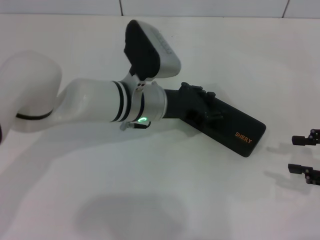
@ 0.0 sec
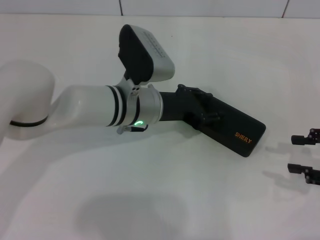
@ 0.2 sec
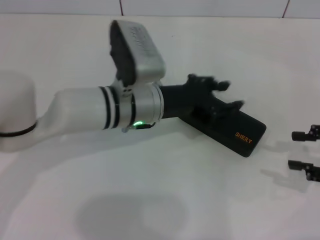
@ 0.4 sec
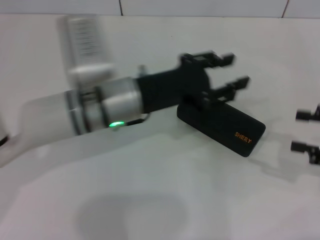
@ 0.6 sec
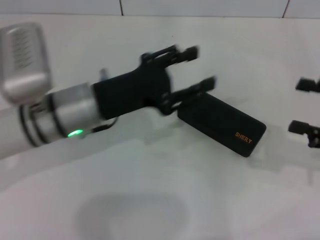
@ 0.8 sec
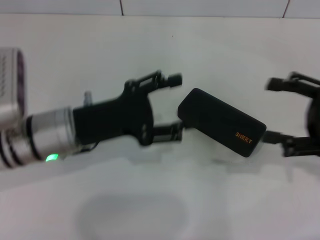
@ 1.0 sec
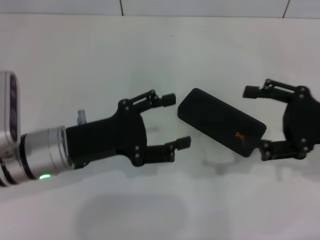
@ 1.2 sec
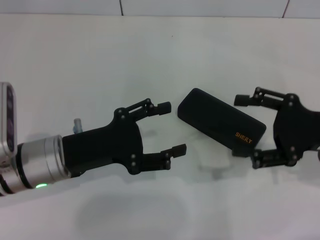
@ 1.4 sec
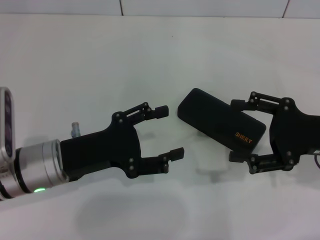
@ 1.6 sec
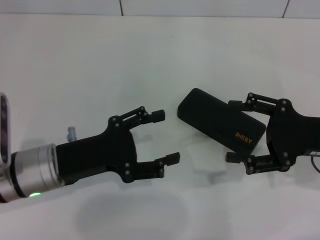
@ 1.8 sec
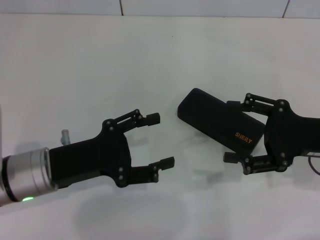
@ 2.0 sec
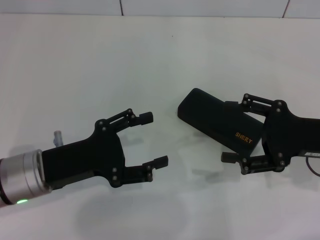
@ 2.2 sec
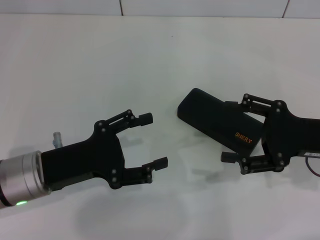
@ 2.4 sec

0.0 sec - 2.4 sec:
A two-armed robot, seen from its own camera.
0.0 sec - 1.2 sec: The left gripper shifts about 15 cm to the left and backward, and opens up. The right gripper goes roughly 5 cm to the left, and opens up.

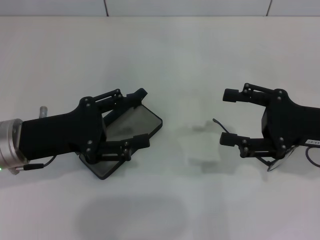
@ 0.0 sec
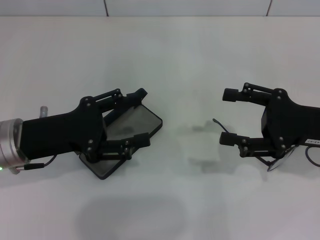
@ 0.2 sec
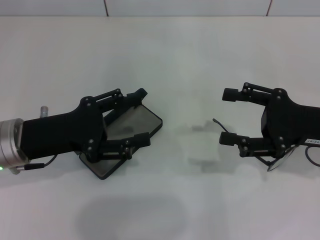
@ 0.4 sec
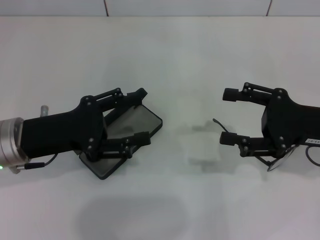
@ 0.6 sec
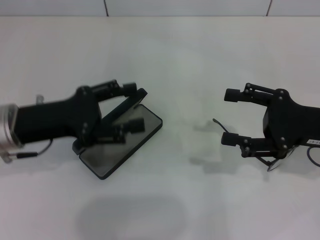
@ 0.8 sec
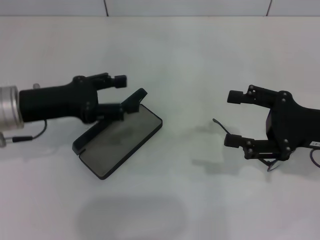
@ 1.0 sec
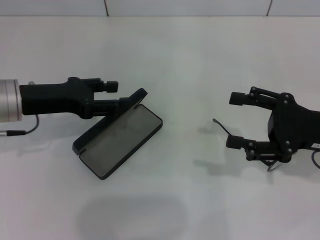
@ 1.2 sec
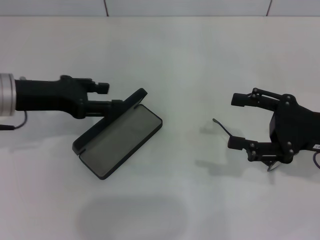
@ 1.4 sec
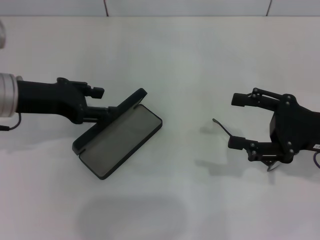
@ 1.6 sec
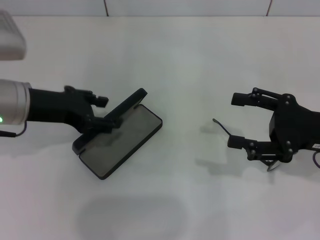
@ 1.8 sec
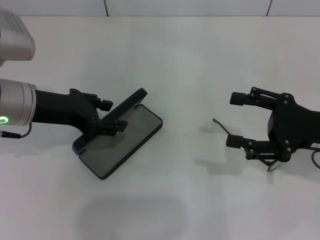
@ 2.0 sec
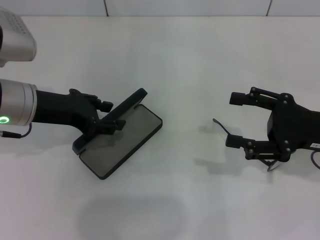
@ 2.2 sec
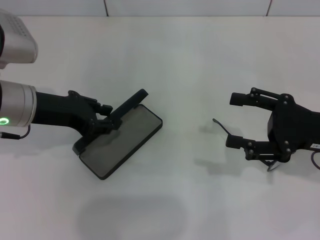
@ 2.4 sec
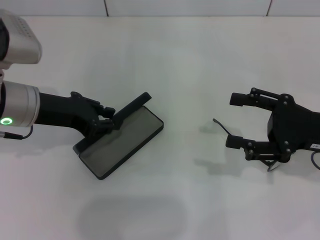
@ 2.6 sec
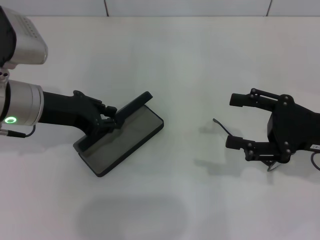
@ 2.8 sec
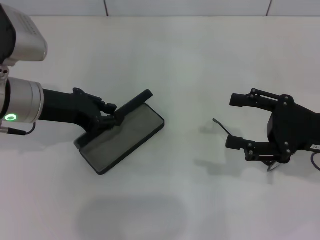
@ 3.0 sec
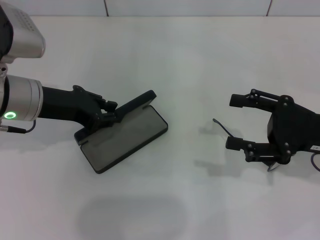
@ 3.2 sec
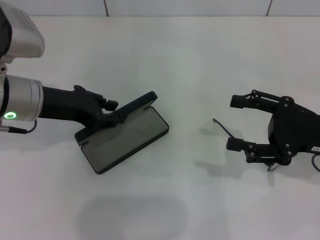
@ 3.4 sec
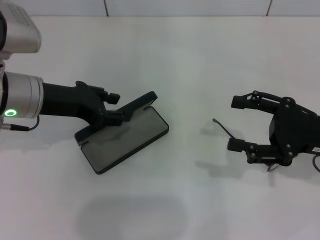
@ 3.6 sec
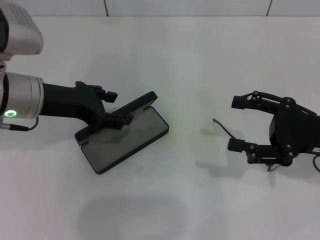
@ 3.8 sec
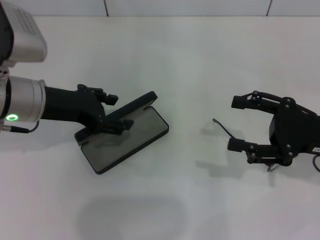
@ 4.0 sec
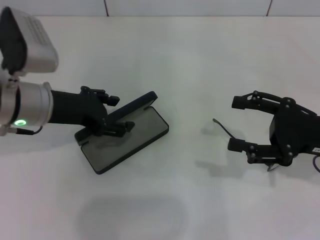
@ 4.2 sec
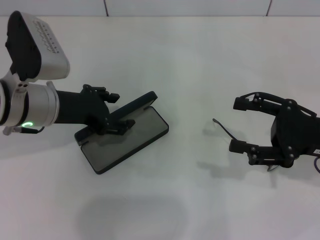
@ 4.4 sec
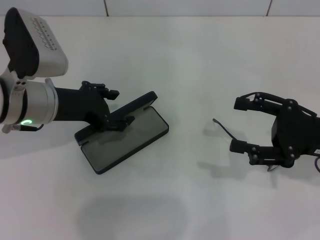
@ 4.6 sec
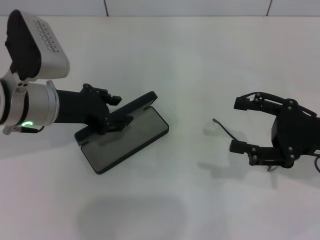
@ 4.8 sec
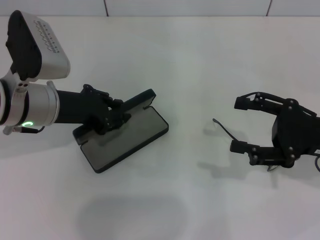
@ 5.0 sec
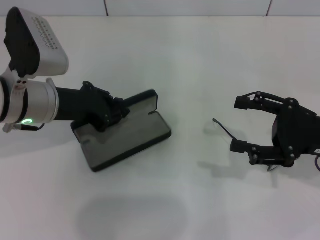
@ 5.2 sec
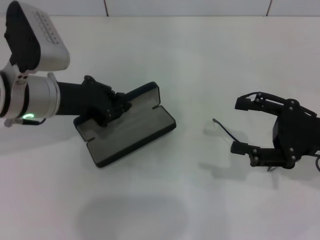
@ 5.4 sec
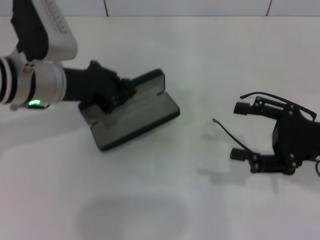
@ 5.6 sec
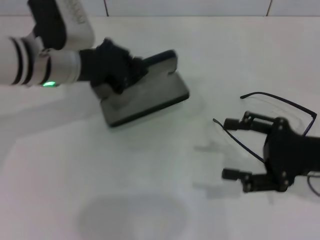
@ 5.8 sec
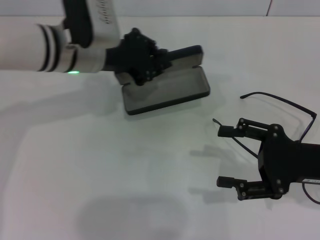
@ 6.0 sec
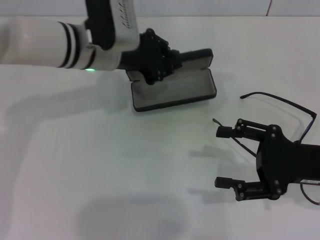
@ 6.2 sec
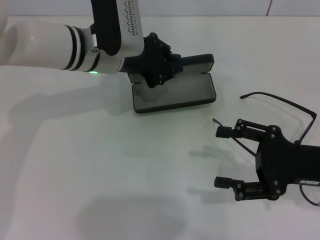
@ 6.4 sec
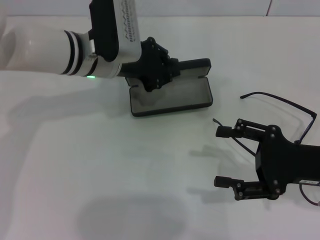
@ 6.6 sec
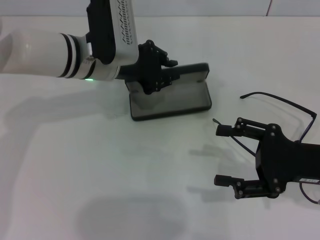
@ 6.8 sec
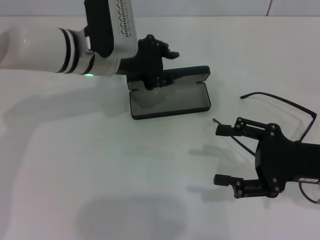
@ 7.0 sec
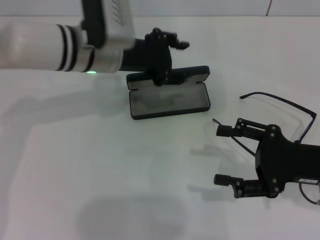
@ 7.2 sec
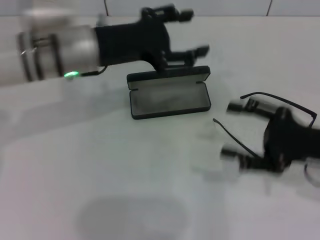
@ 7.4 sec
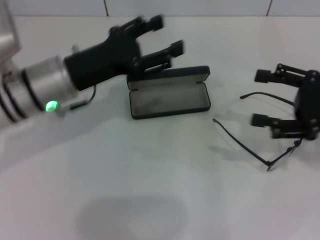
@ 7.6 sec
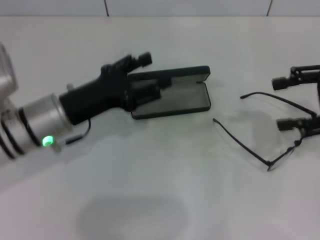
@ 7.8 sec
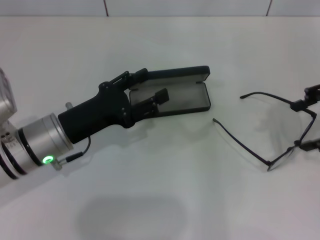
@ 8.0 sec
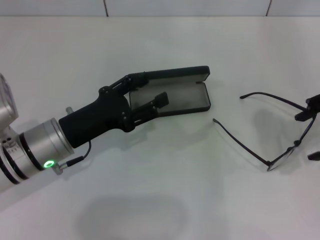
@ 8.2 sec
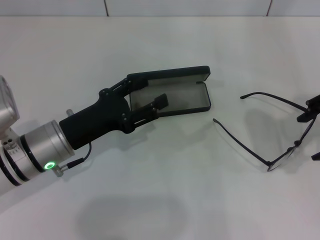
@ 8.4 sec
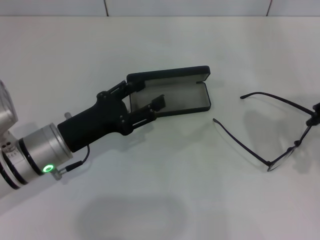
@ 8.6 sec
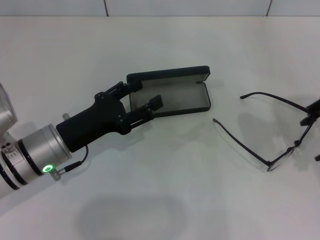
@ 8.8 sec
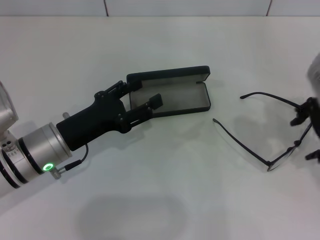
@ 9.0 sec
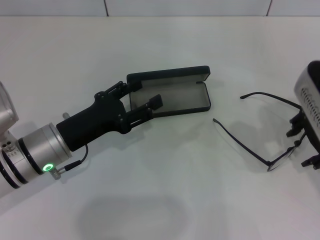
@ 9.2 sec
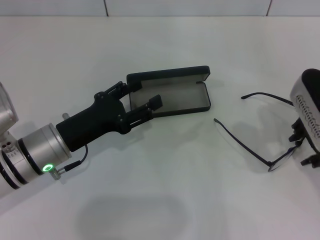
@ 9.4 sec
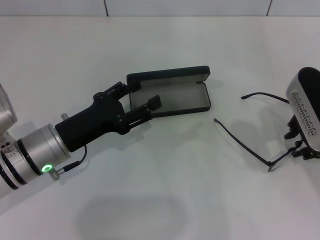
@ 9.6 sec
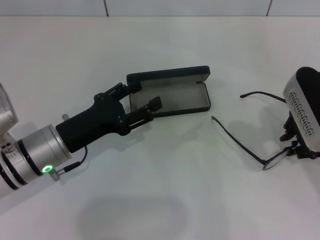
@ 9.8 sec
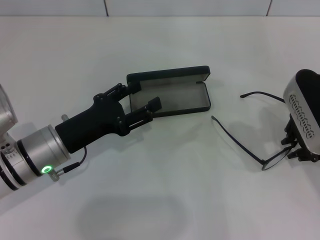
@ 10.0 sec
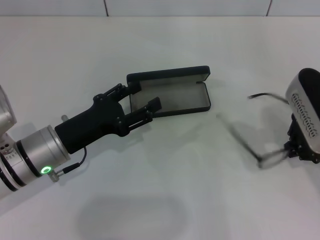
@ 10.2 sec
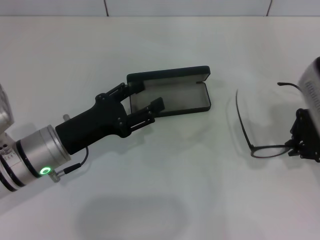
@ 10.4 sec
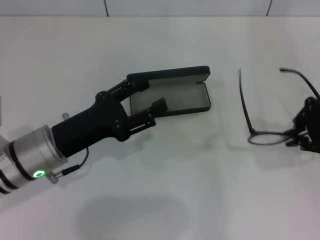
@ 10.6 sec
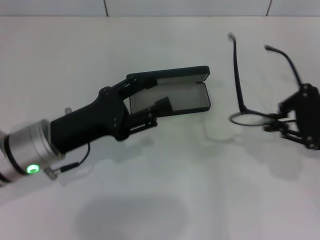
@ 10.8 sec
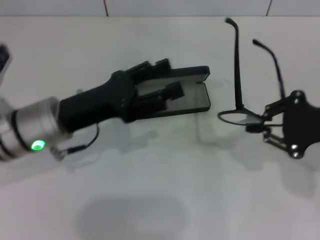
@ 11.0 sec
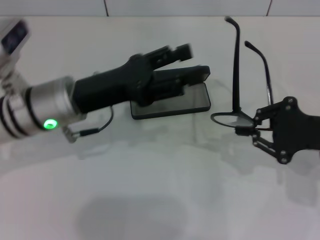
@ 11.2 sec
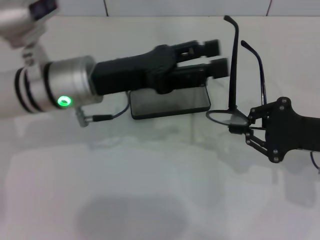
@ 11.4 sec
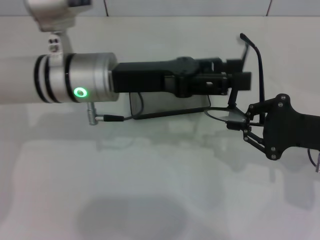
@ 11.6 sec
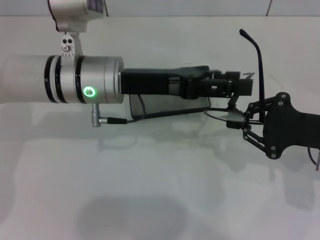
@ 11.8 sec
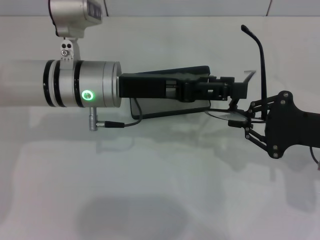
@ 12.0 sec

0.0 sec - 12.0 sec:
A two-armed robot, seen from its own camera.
Step, 0.0 sec - 5.2 sec: Grab the glasses case with your left hand.
Step, 5.4 sec - 6.8 sec: Place the glasses case in the center of the table with your left hand.
Step, 7.0 sec - 10.0 sec: Grab the eyeglass frame with your right hand.
0.0 sec - 1.6 sec: The left gripper travels forward by some 5 cm.
1.6 sec - 3.0 sec: The left gripper closes up.
3.0 sec - 4.4 sec: The left gripper opens.
4.4 sec - 6.0 sec: The left gripper shifts roughly 10 cm forward and to the right, and closes.
6.0 sec - 7.6 sec: The left gripper travels backward by roughly 5 cm, and opens up. The right gripper shifts by about 5 cm.
7.6 sec - 9.0 sec: The left gripper moves downward and backward, some 10 cm. The right gripper travels upward and to the left by approximately 10 cm.
9.0 sec - 10.4 sec: The right gripper closes its fingers.
10.4 sec - 12.0 sec: The left gripper travels upward, forward and to the right by some 15 cm. The right gripper travels downward by roughly 5 cm.

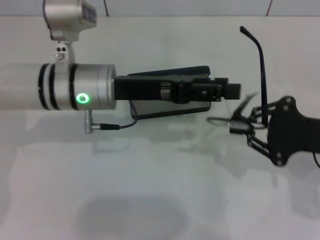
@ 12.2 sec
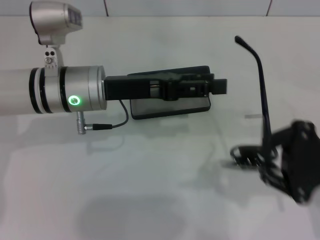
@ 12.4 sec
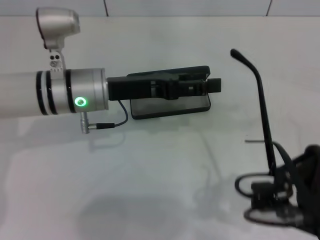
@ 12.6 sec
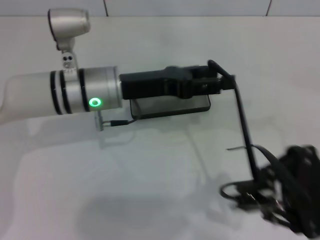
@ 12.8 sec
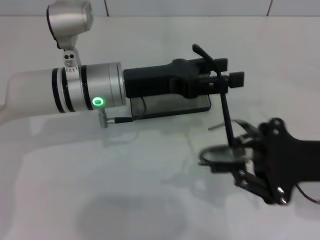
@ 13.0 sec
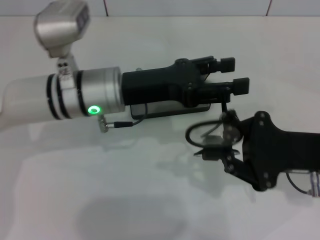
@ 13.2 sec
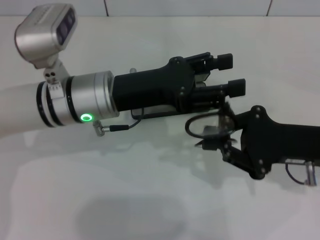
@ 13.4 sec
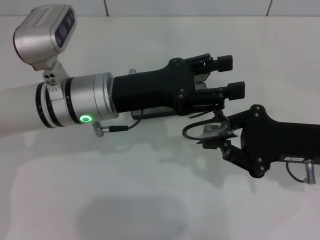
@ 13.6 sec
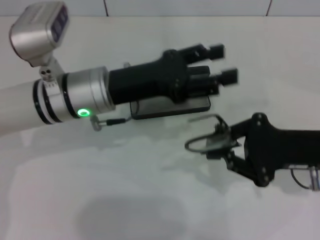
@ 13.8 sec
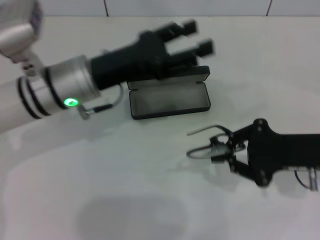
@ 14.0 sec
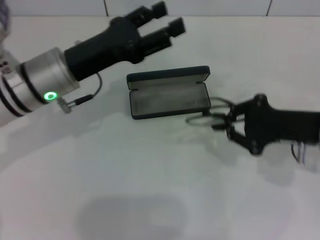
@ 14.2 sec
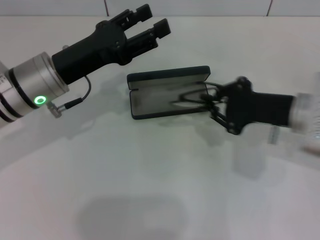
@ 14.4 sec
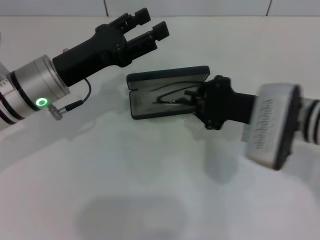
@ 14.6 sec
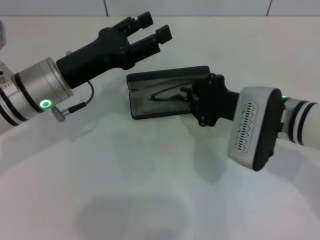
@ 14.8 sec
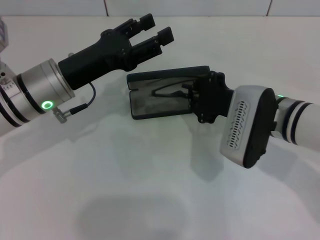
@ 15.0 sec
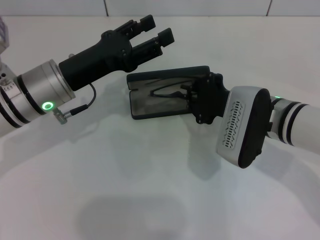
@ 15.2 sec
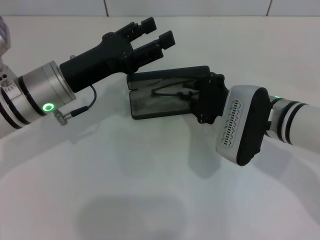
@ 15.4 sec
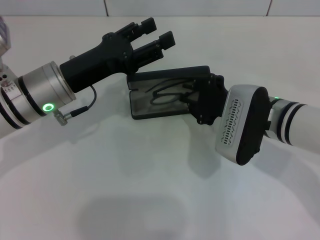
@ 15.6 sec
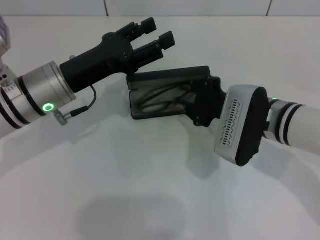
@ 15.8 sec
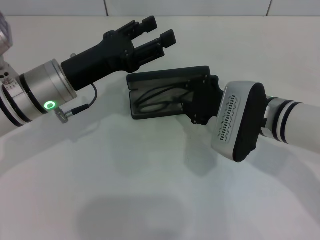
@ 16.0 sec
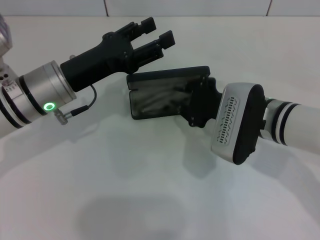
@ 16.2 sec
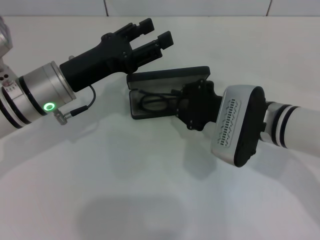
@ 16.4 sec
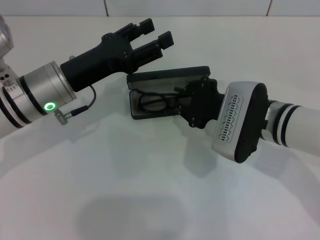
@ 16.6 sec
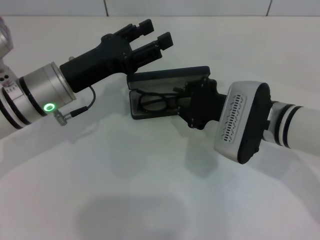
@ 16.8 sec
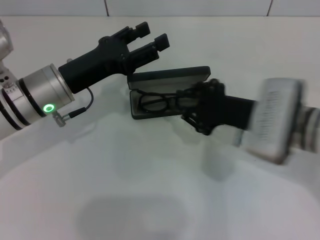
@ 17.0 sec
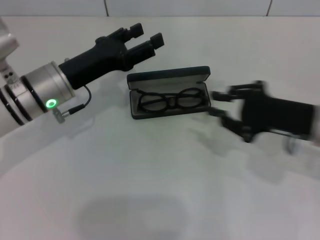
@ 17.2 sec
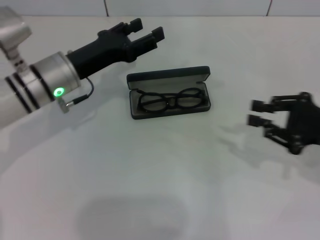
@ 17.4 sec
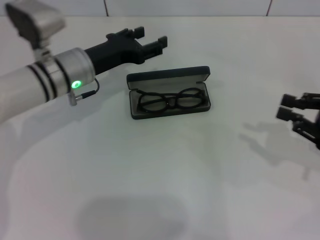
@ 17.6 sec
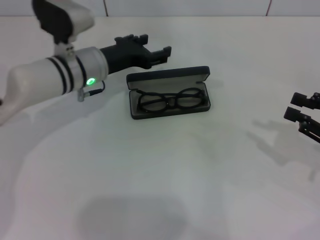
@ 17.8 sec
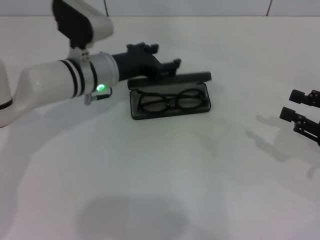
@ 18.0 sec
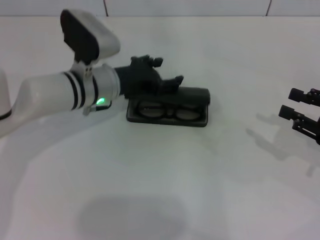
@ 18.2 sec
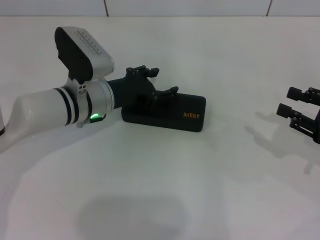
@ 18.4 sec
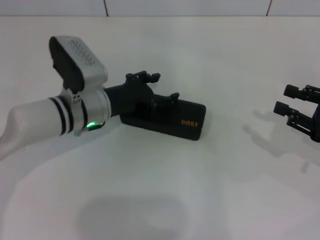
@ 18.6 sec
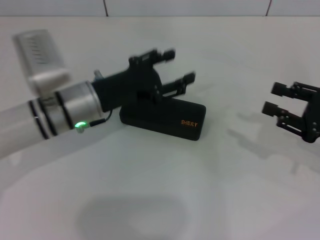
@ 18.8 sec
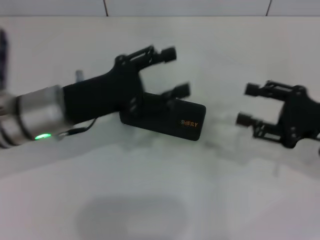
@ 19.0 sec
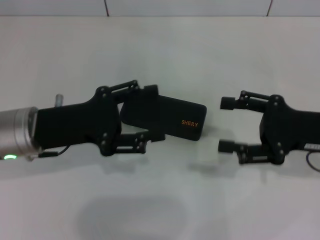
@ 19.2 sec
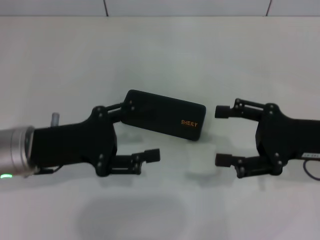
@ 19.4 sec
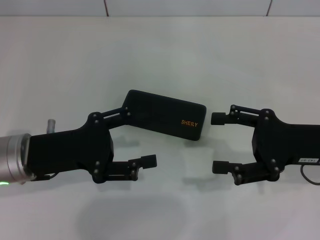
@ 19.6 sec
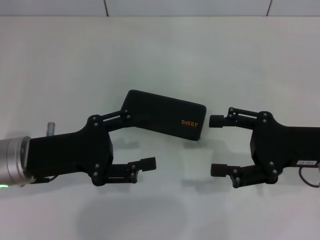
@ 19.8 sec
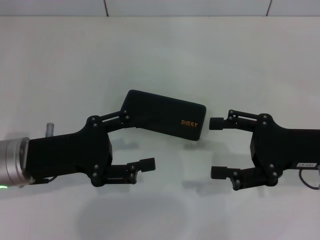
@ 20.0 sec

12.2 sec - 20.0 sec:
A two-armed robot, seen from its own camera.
Step, 13.6 sec - 16.6 sec: Put the glasses into the case with your right hand.
Step, 16.8 sec - 18.4 sec: Close the glasses case with your left hand.
13.8 sec - 15.4 sec: The left gripper heads to the left, covering roughly 5 cm, while the right gripper travels to the left by about 10 cm.
15.4 sec - 16.8 sec: The grippers move only a little.
16.8 sec - 18.4 sec: The left gripper moves roughly 5 cm, while the right gripper goes approximately 20 cm to the right.
18.4 sec - 20.0 sec: The right gripper goes some 10 cm to the left, and opens its fingers. The left gripper shifts approximately 15 cm backward and to the left.
